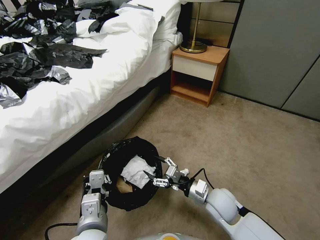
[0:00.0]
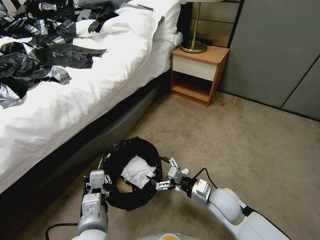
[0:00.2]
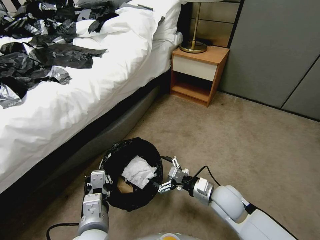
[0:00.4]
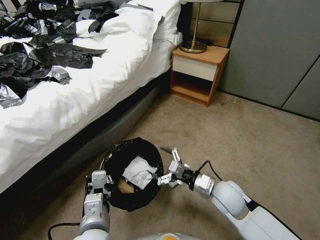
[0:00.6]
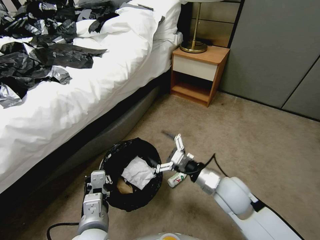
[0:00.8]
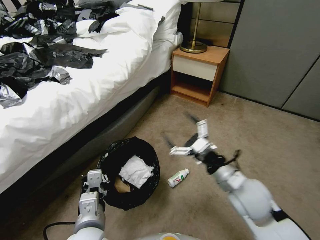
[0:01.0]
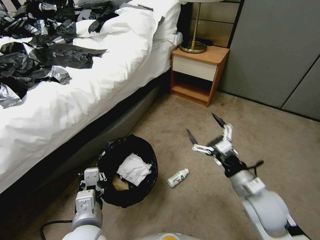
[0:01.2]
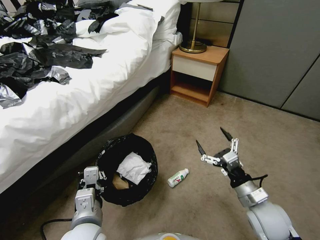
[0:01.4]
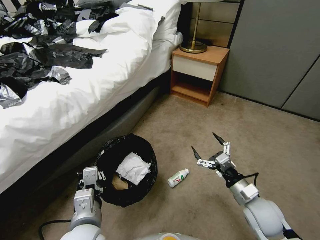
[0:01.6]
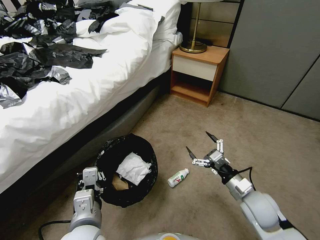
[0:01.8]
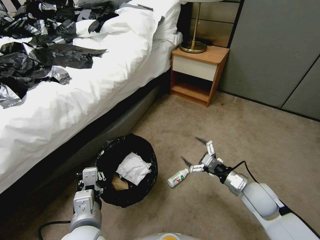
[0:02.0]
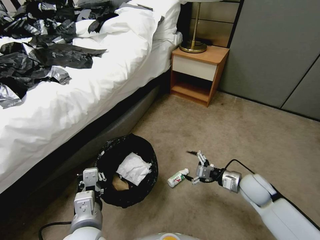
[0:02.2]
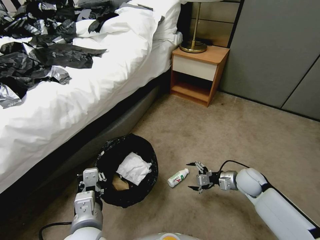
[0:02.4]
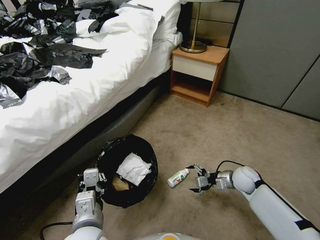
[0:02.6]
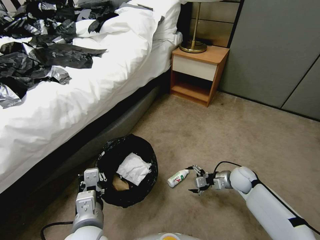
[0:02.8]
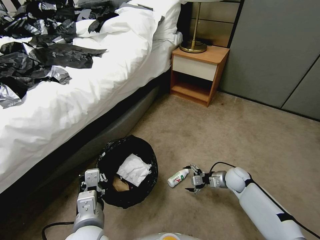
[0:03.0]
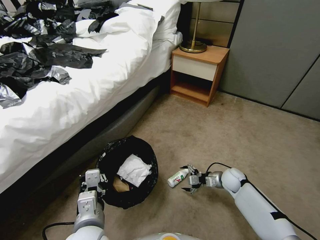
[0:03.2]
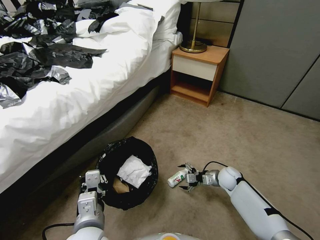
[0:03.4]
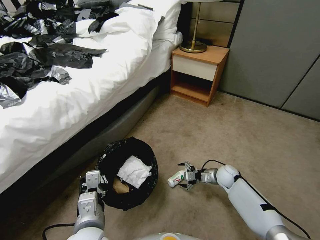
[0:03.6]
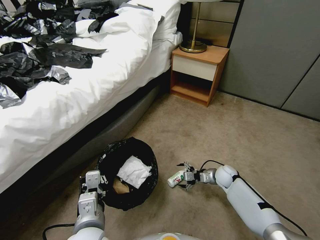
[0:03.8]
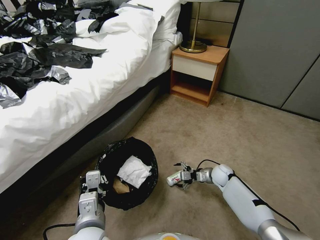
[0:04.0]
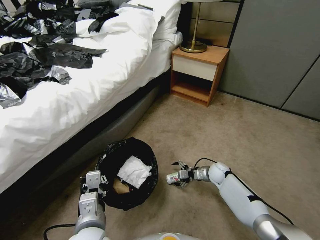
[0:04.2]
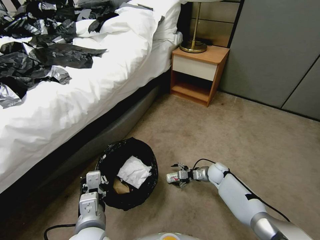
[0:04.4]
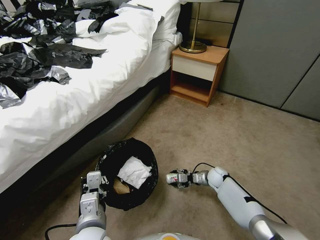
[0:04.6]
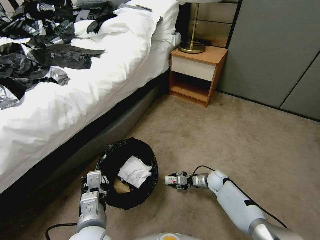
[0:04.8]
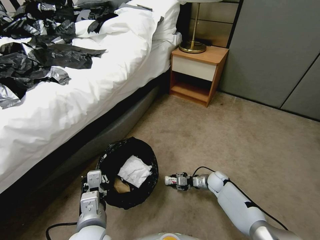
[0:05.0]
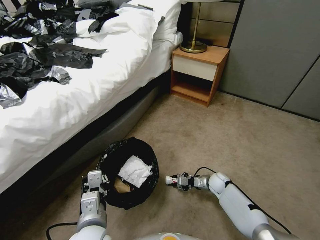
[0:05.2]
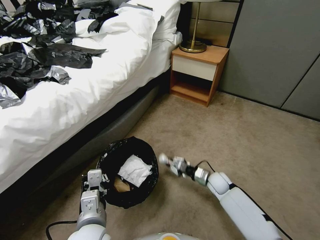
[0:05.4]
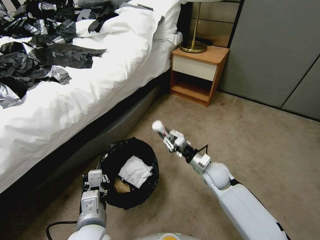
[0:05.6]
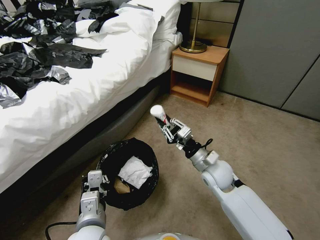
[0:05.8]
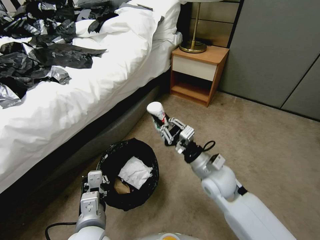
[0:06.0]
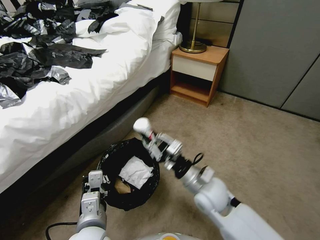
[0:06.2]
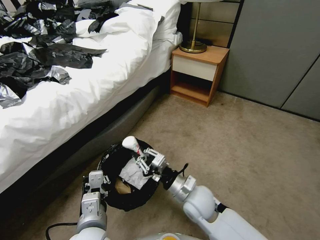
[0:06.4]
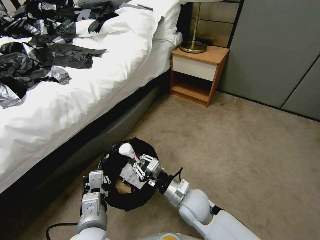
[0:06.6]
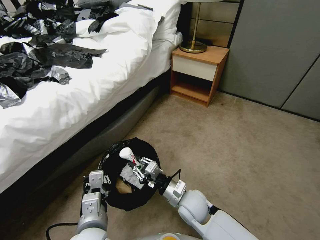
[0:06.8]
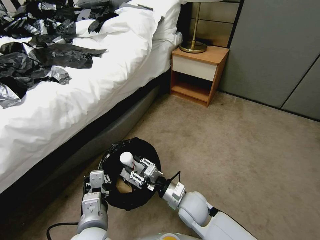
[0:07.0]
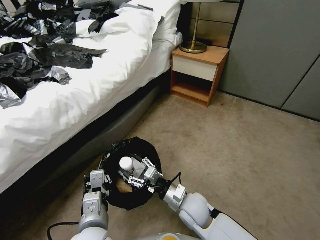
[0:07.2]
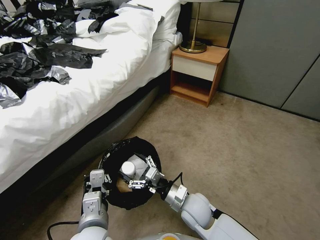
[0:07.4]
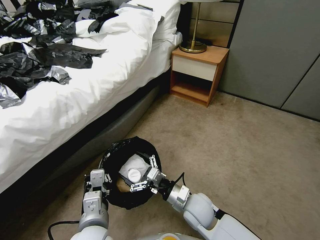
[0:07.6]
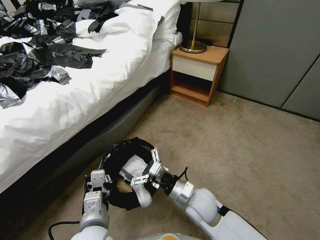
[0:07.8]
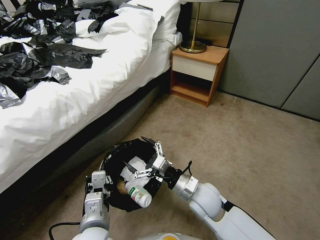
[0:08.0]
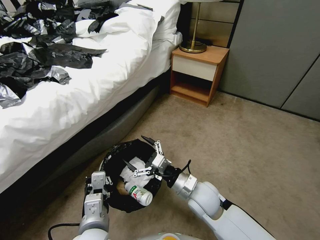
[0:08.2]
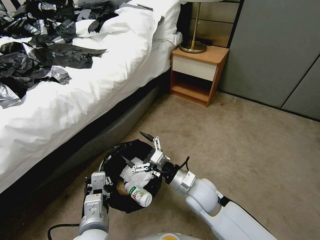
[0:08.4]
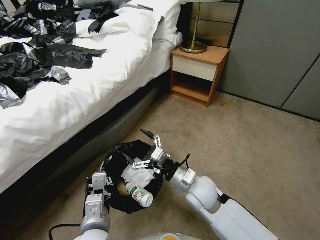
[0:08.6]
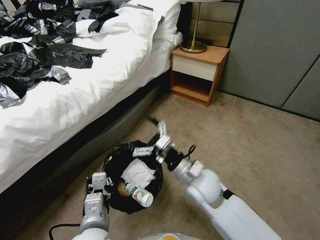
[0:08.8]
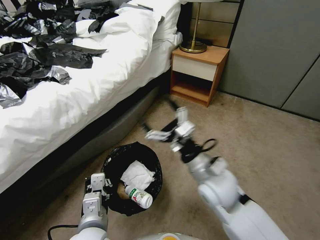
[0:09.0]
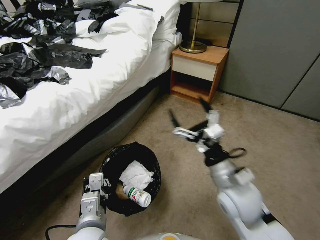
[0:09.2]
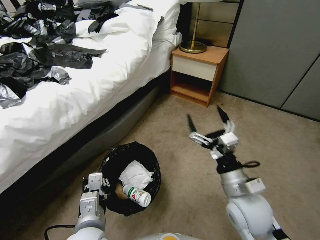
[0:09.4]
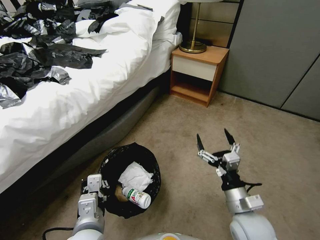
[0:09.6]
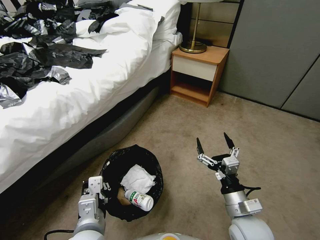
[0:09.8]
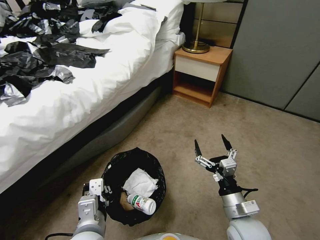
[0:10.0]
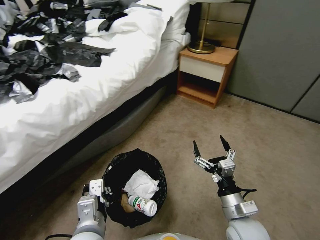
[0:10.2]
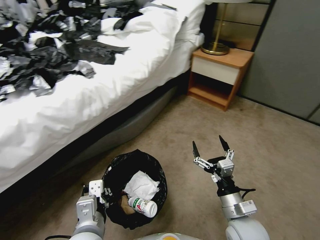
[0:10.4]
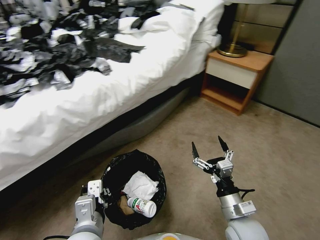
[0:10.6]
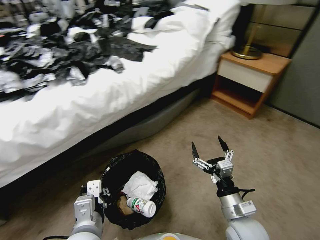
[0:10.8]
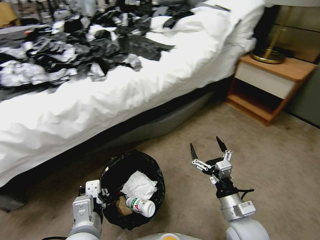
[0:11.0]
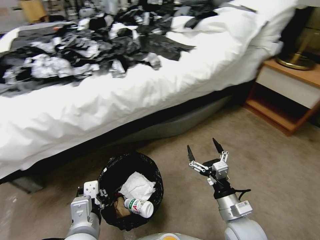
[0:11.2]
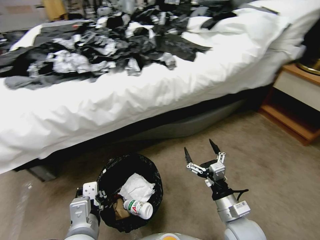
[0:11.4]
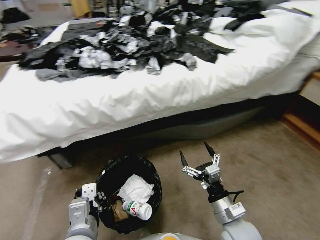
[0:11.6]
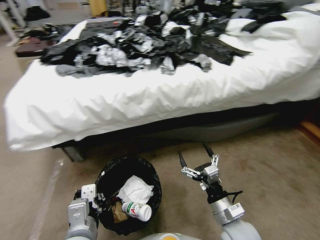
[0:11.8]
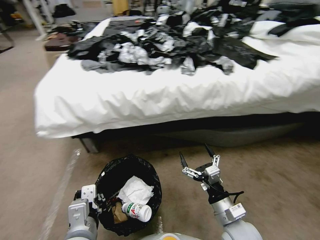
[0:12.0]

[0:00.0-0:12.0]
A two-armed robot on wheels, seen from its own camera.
Task of the whole recording: Pick up the trash bin, then pick up the garbage from the floor and place it into the trash bin.
0:00.0 to 0:01.6: The right gripper goes approximately 10 cm to the right, and goes upward and returns, approximately 10 cm each way.
0:01.6 to 0:03.0: The right gripper moves forward and downward, approximately 20 cm.
0:03.0 to 0:04.4: The right gripper heads to the left and downward, covering about 10 cm.
0:04.4 to 0:06.0: The right gripper goes roughly 30 cm upward, backward and to the left, and closes its fingers.
0:06.0 to 0:07.6: The right gripper heads downward, backward and to the left, covering approximately 15 cm, and opens its fingers.
0:07.6 to 0:09.0: The right gripper travels upward by roughly 15 cm.
0:09.0 to 0:10.4: The right gripper moves downward, backward and to the right, roughly 15 cm.

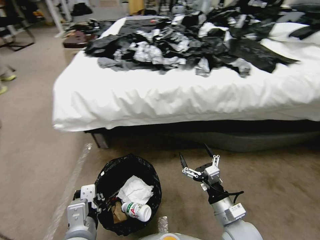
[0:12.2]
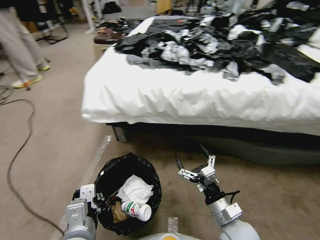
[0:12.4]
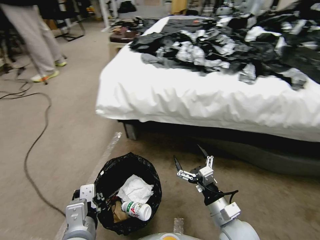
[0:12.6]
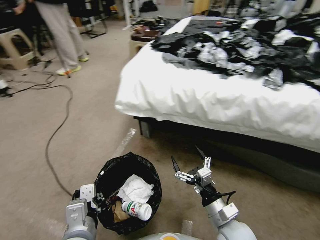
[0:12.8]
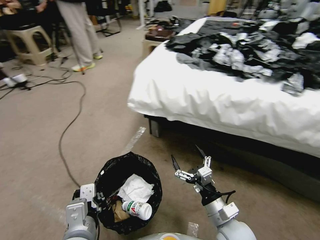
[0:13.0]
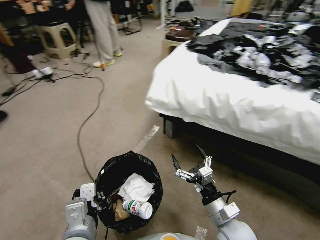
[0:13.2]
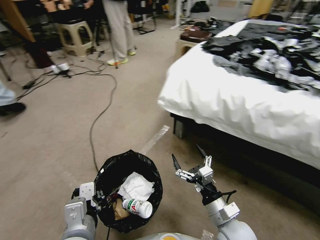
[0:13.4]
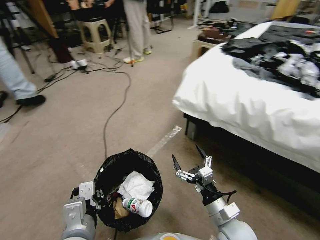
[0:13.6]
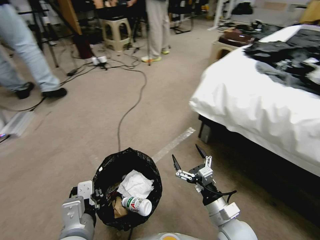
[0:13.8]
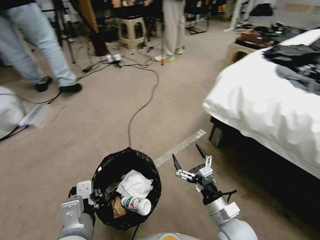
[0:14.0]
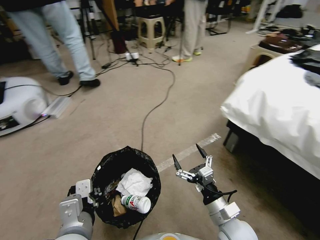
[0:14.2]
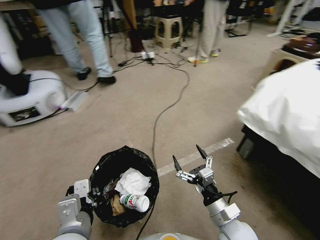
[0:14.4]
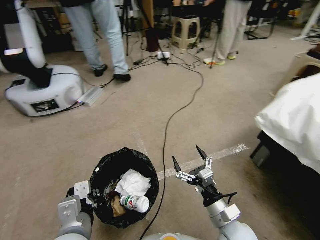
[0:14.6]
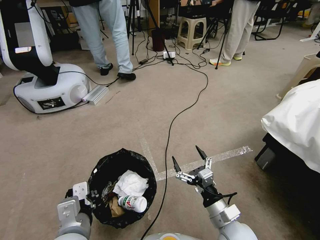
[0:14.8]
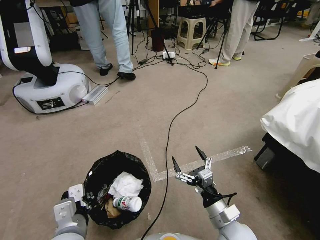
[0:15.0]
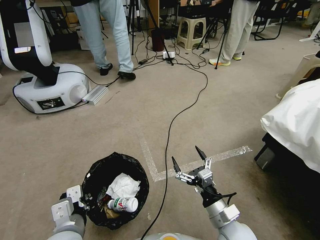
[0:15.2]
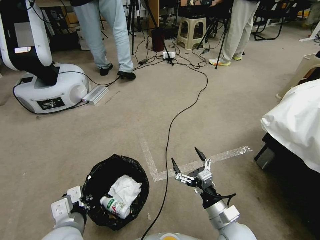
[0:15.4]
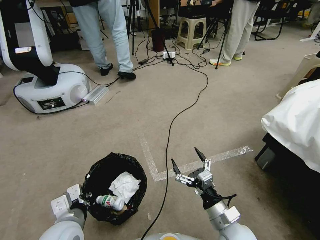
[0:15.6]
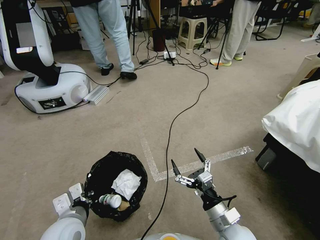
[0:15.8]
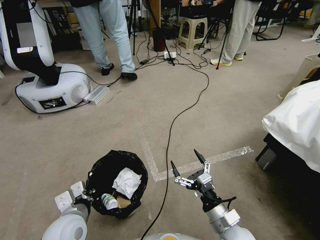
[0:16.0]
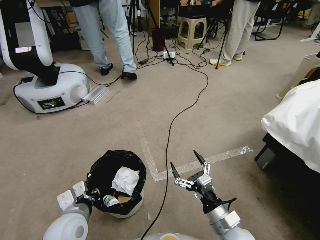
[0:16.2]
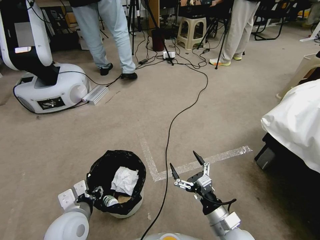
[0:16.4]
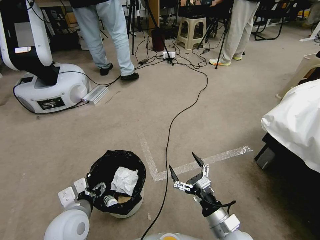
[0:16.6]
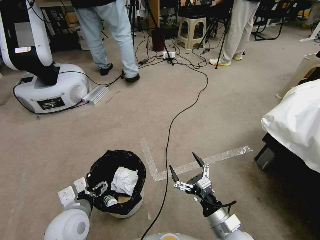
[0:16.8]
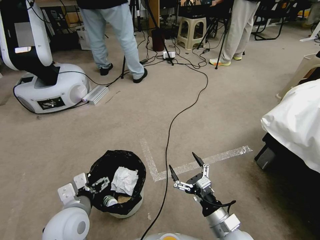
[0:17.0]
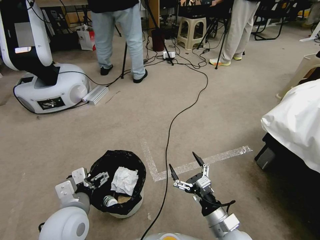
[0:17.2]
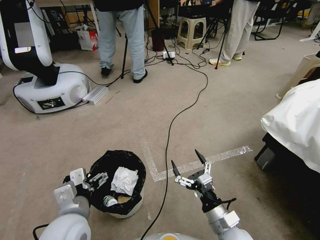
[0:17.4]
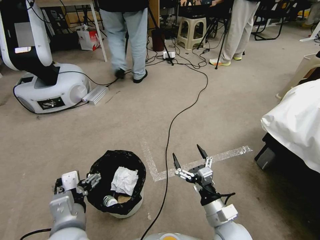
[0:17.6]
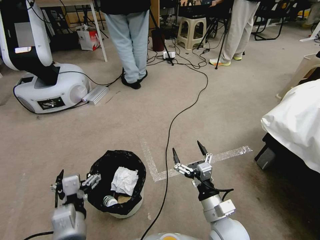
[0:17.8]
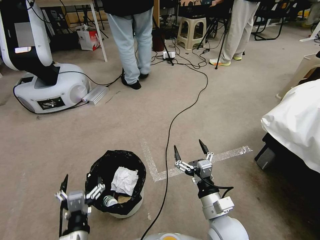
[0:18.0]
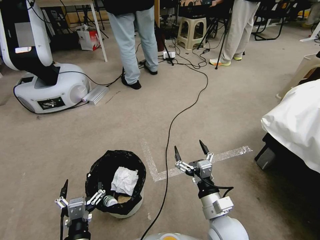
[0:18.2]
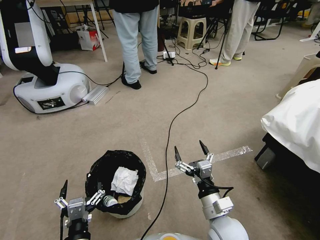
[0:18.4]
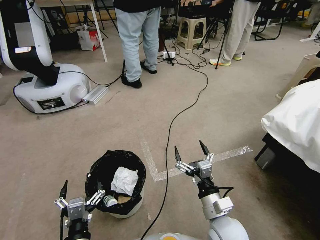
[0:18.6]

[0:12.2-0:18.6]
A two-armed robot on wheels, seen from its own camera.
Task of the whole recording: Pick up the trash bin, then pick up the garbage from the floor and place it into the trash bin.
0:13.8 to 0:15.4: The left gripper moves approximately 5 cm.
0:15.4 to 0:17.0: The left gripper opens its fingers.
0:17.0 to 0:18.6: The left gripper shifts about 15 cm backward and downward. The right gripper shifts by about 5 cm.

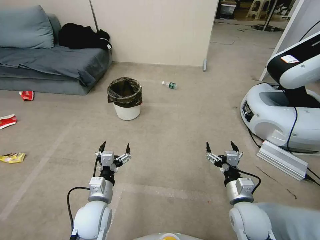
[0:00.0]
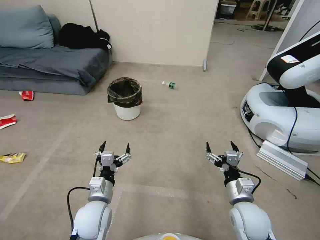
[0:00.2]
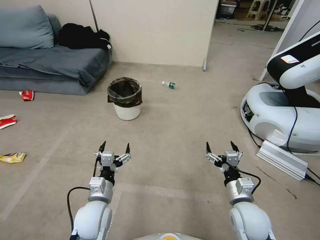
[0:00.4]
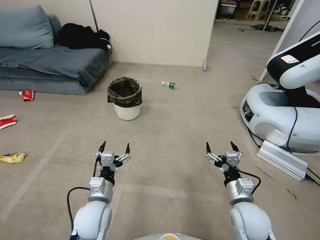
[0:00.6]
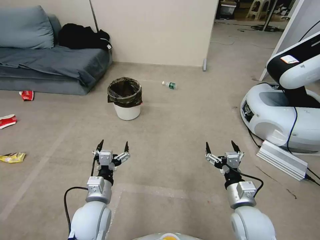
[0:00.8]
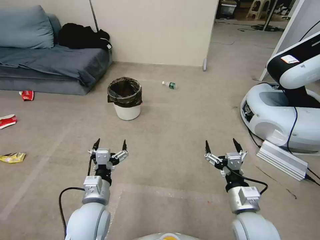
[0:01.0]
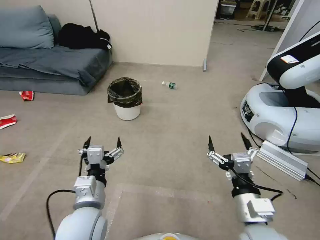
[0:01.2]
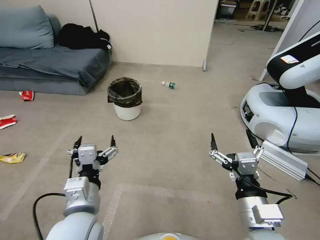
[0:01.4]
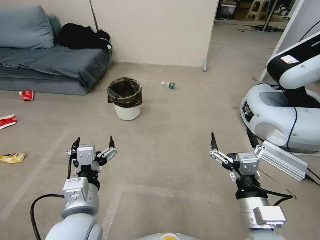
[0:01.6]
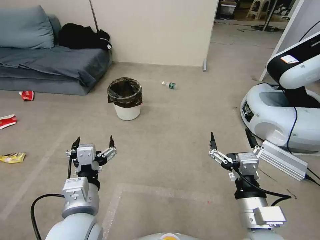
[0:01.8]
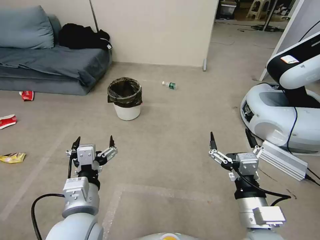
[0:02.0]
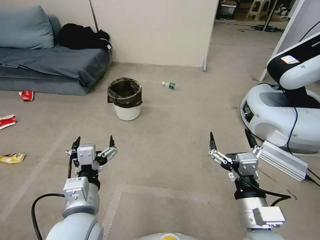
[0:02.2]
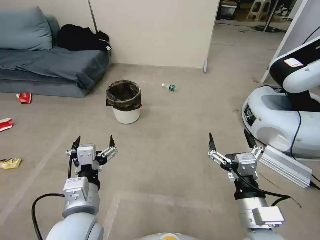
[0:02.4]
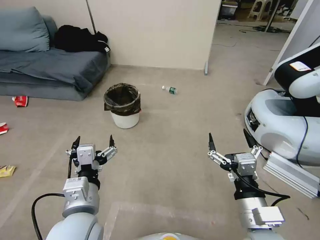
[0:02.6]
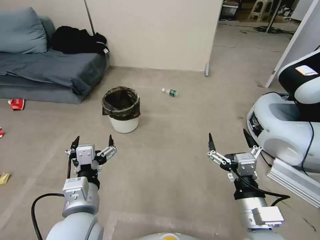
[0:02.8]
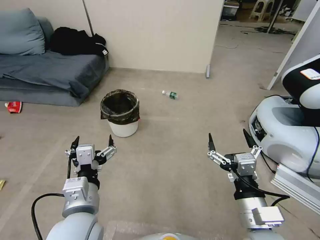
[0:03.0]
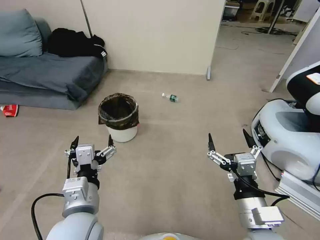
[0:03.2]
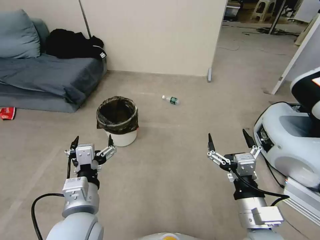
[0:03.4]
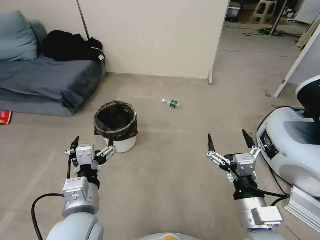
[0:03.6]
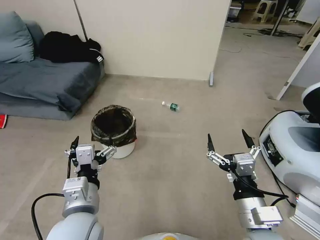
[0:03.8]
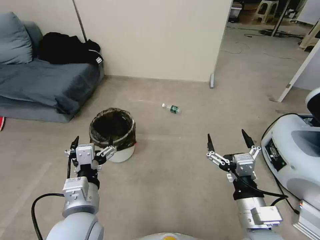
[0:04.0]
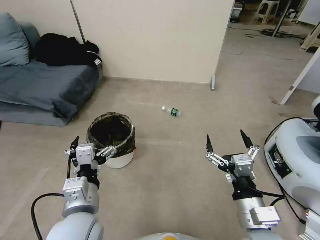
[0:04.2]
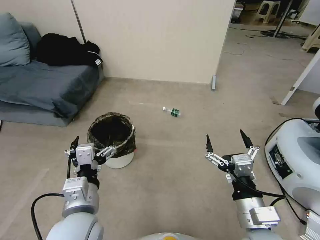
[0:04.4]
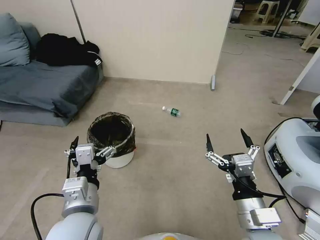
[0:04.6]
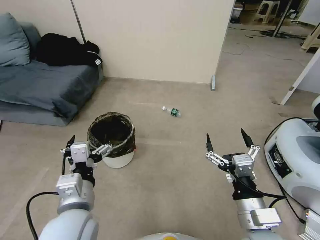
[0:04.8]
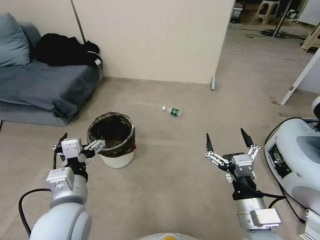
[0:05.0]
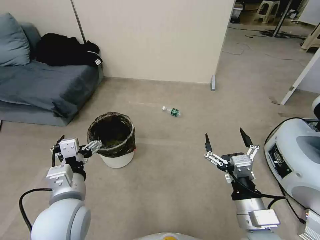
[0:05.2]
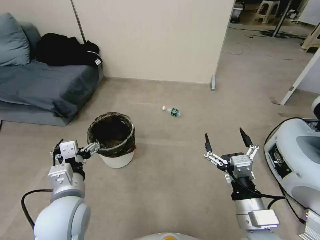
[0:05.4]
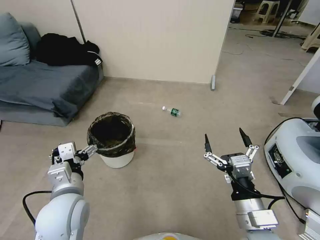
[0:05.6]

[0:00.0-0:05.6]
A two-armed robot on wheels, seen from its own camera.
Task of the whole recording: Pick up the trash bin, then pick up the garbage from the floor and place it into the trash bin.
0:04.2 to 0:05.6: The left gripper shifts roughly 5 cm to the left.
